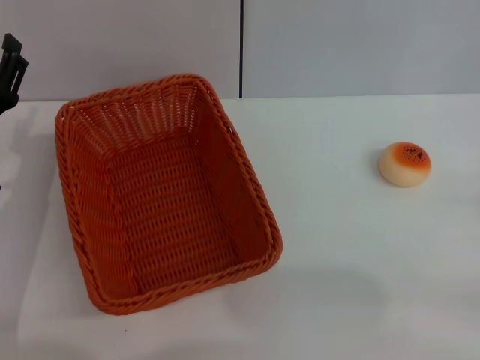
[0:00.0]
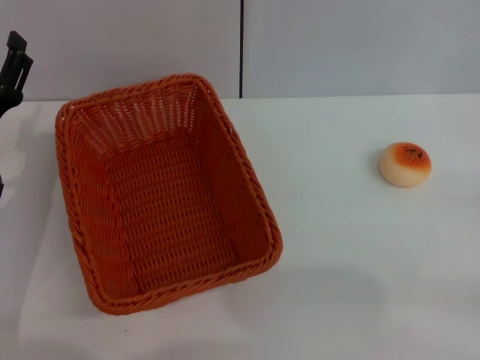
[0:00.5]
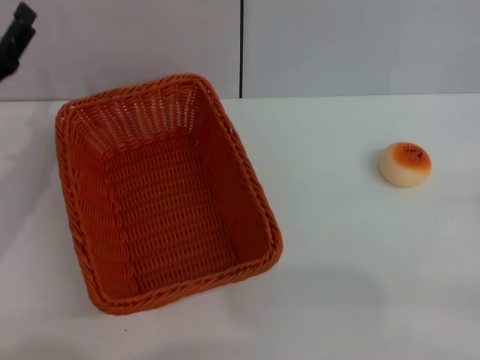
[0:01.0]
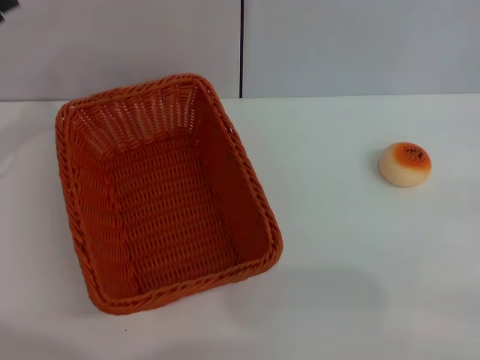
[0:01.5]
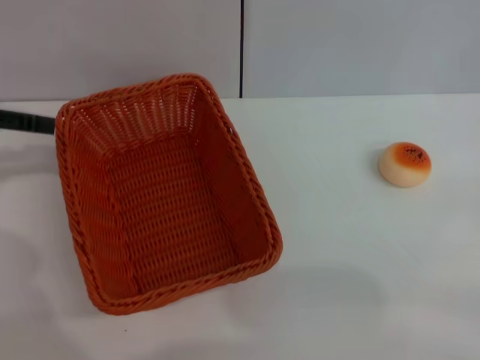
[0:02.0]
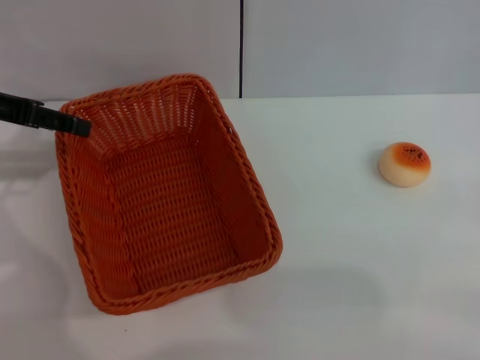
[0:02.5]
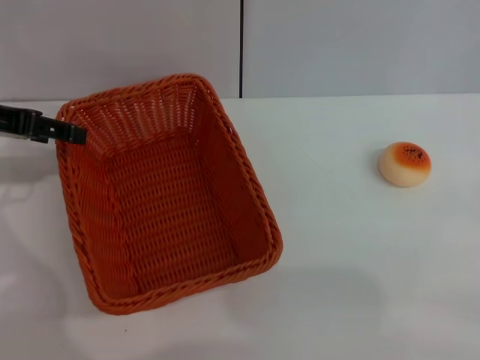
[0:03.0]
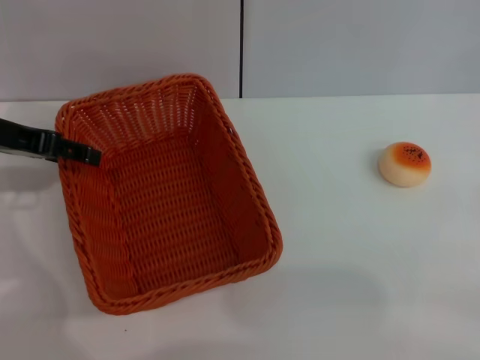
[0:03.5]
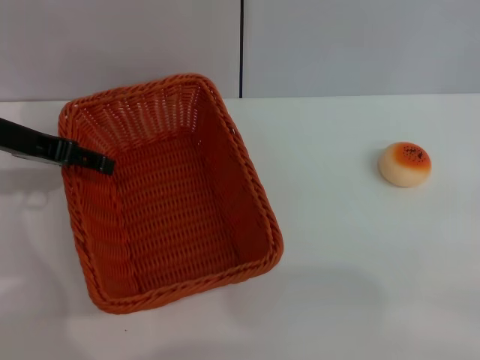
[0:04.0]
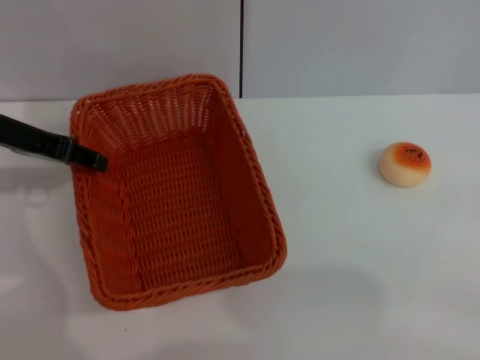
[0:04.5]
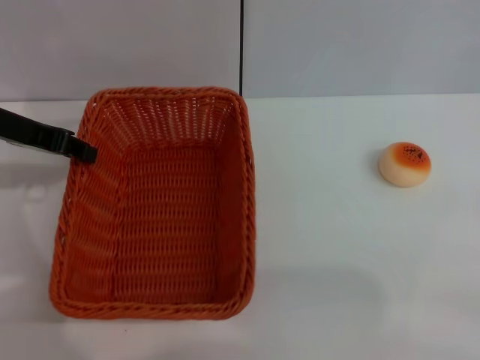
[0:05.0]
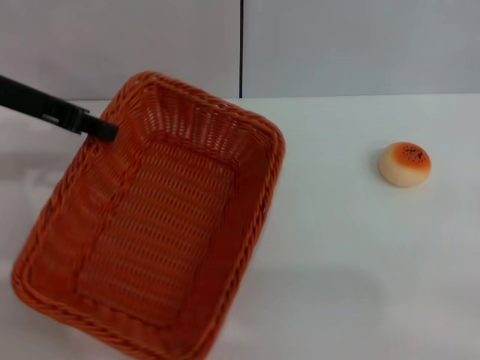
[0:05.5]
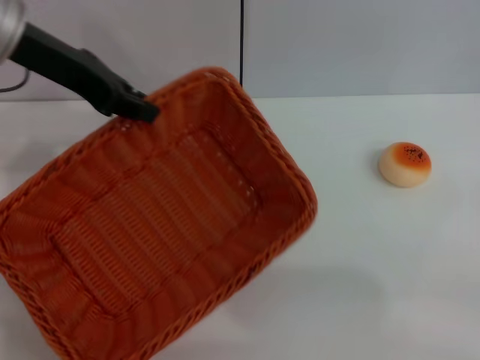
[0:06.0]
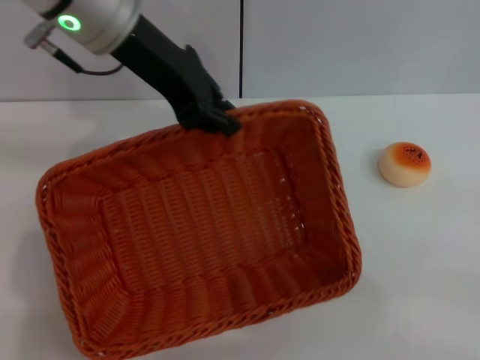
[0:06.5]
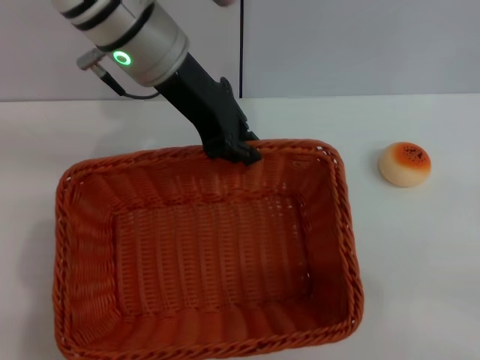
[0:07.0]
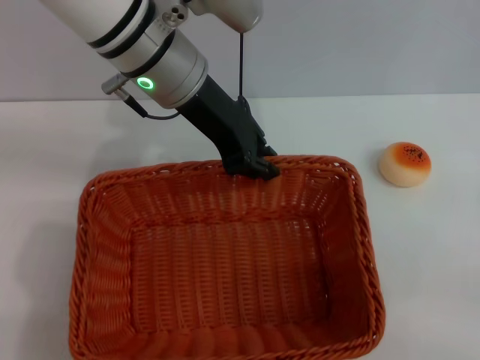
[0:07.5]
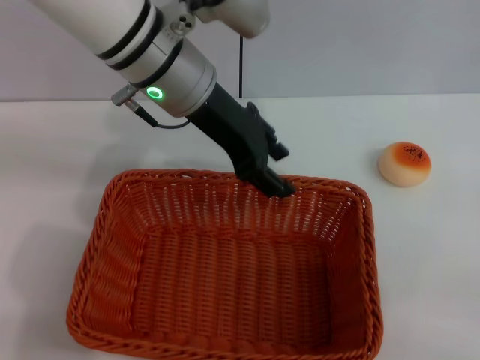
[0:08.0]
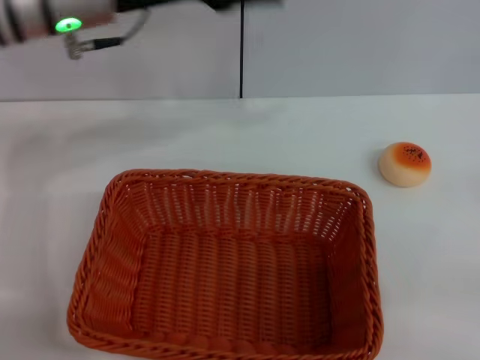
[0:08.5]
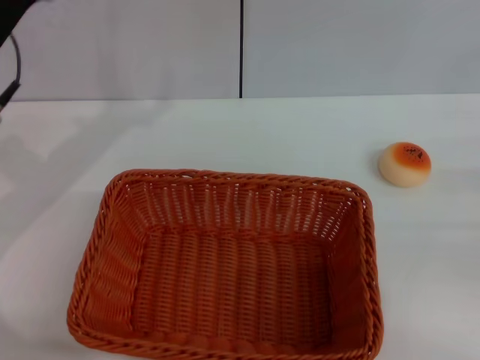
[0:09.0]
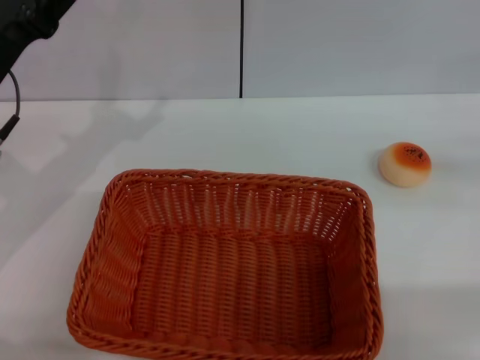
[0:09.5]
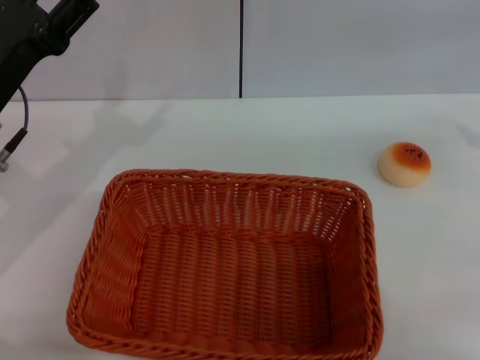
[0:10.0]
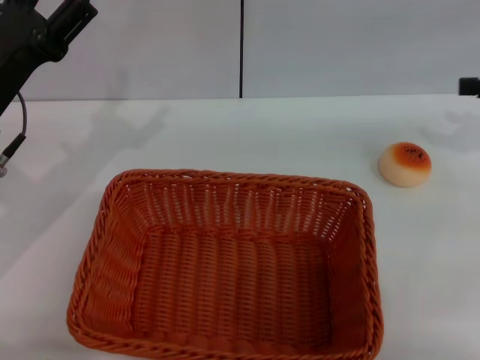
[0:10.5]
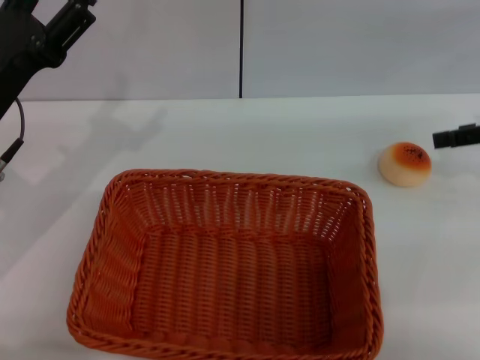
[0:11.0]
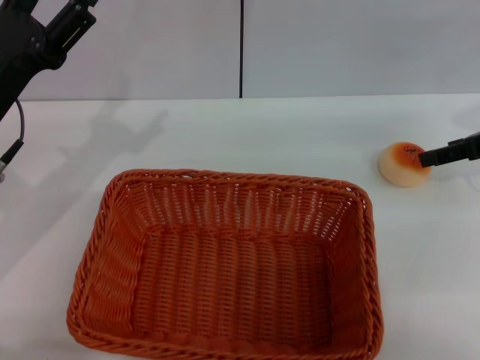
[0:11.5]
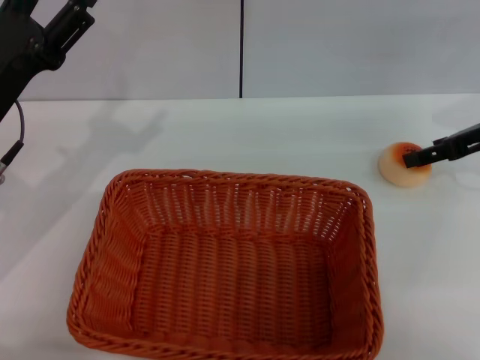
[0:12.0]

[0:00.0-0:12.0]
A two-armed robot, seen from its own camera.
Step, 0:00.0 to 0:08.0: Move the basket to the center of view with the left gripper.
0:00.0 to 0:02.0: The left gripper moves upward, to the left and forward, about 20 cm.
0:02.0 to 0:04.0: The left gripper heads to the right, covering roughly 10 cm.
0:04.0 to 0:06.0: The left gripper goes roughly 10 cm upward and to the right, and closes up.
0:06.0 to 0:08.0: The left gripper shifts approximately 15 cm to the right.
0:08.0 to 0:10.0: The right gripper moves upward and forward, some 20 cm. Meanwhile the left gripper shifts approximately 20 cm to the left, backward and downward, and opens its fingers.
0:10.0 to 0:12.0: The right gripper is displaced to the left, downward and forward by approximately 15 cm.

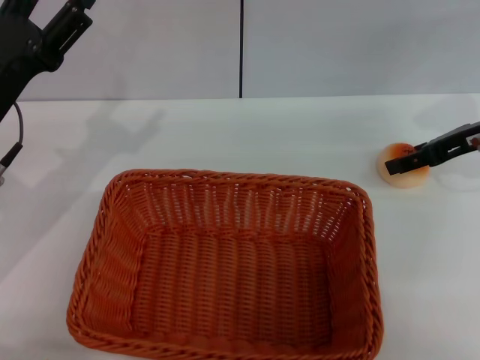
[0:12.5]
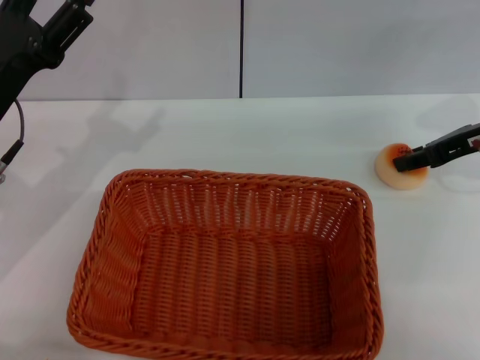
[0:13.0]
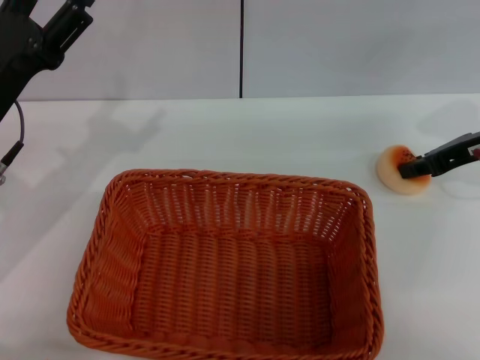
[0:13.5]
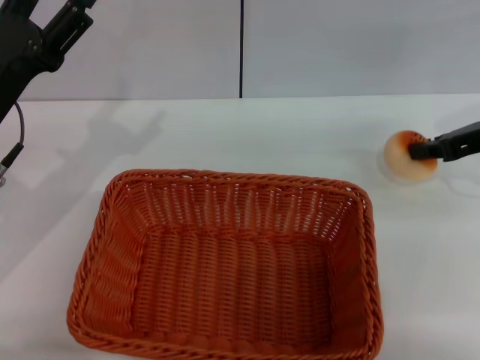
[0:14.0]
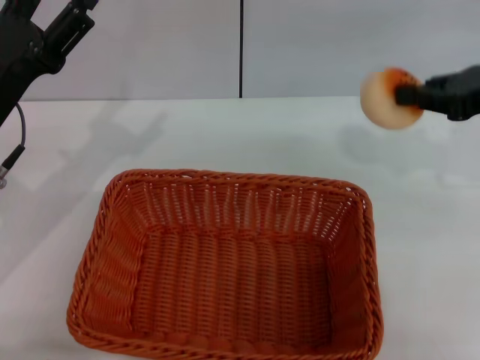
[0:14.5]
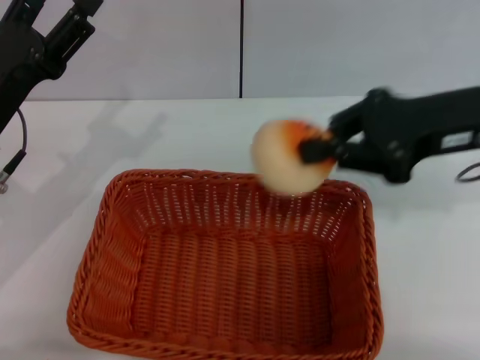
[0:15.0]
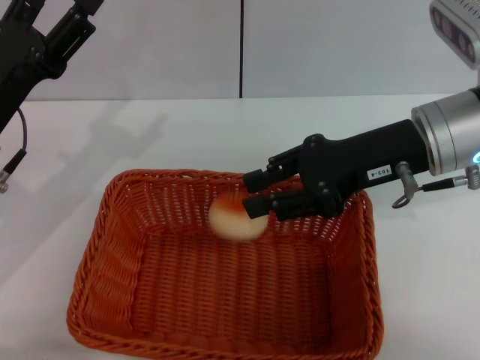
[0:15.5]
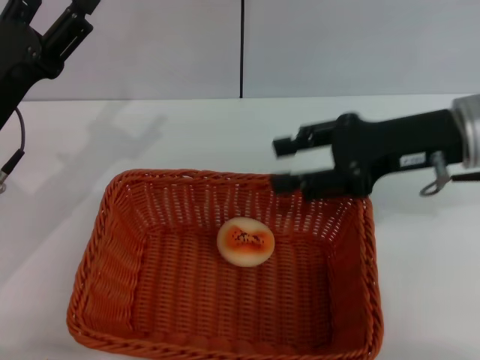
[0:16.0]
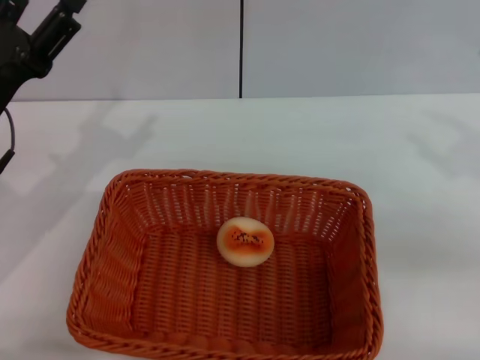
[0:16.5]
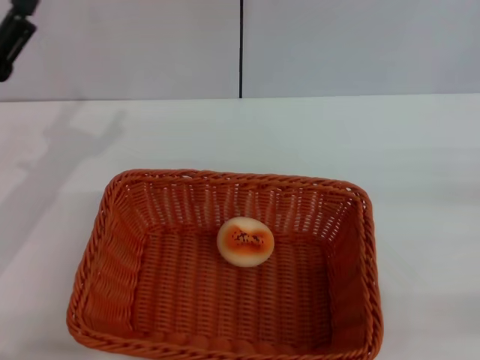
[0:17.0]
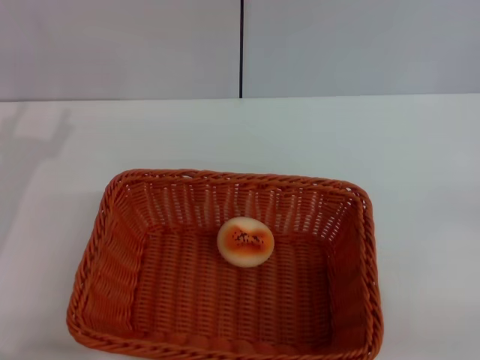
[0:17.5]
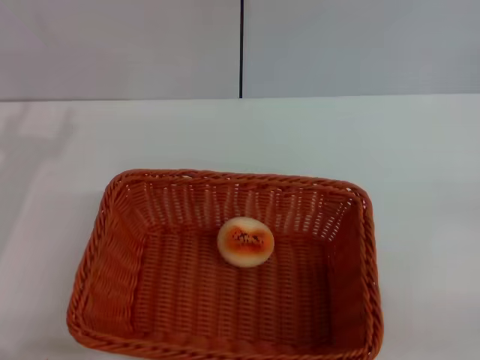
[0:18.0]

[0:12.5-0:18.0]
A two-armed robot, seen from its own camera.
Step, 0:14.5 to 0:15.5: Place the egg yolk pastry into the basket with the right gripper.
0:12.5 to 0:14.5: The right gripper travels upward and backward by some 10 cm, and closes up.
0:14.5 to 0:16.0: The right gripper goes some 10 cm to the left, and opens up.
0:16.0 to 0:18.0: The left gripper ends up about 5 cm from where it was. Meanwhile the right gripper is displaced to the right, backward and downward by roughly 25 cm.

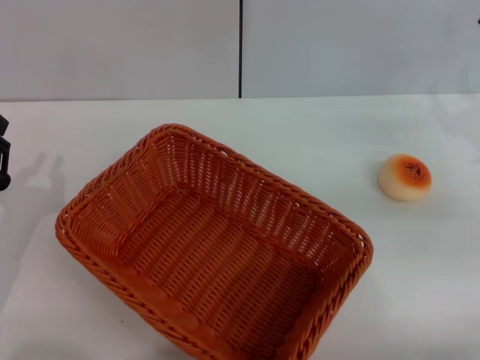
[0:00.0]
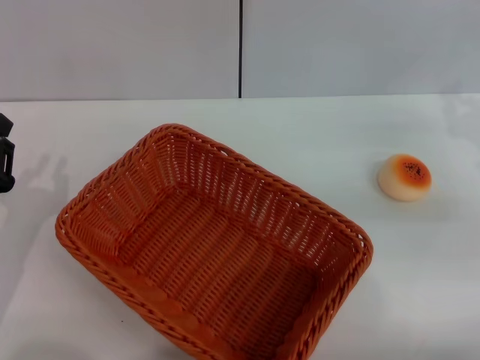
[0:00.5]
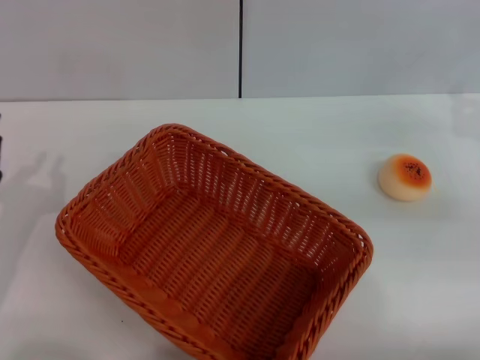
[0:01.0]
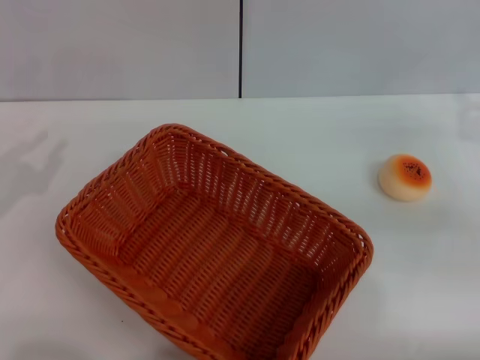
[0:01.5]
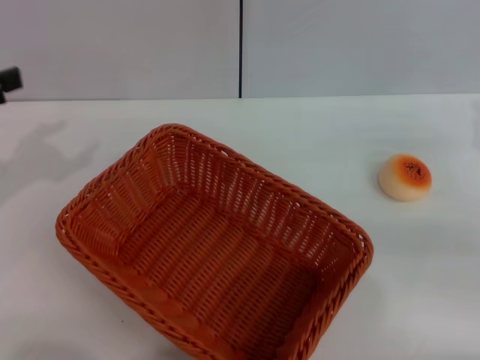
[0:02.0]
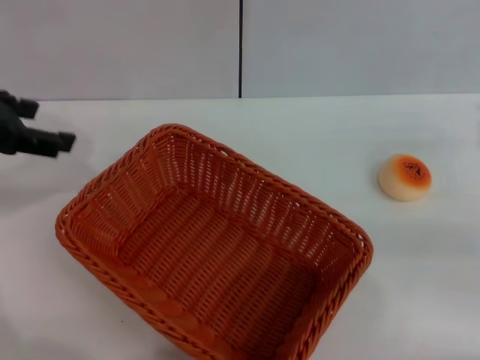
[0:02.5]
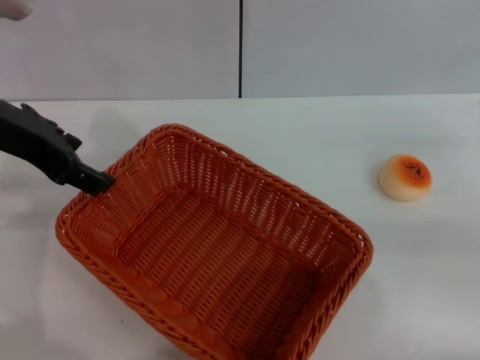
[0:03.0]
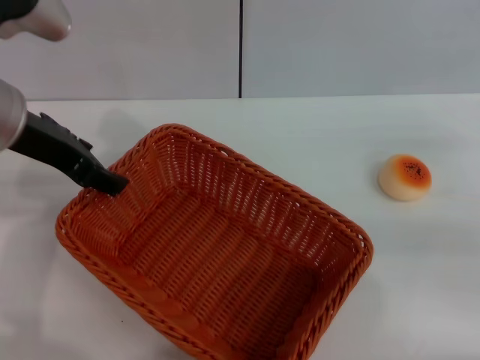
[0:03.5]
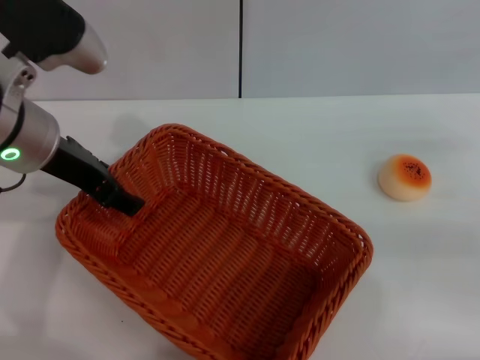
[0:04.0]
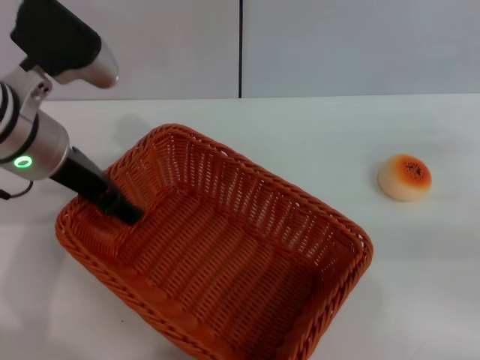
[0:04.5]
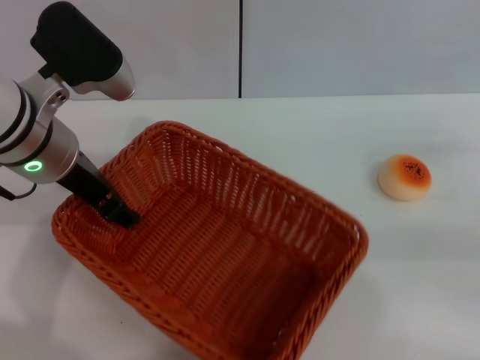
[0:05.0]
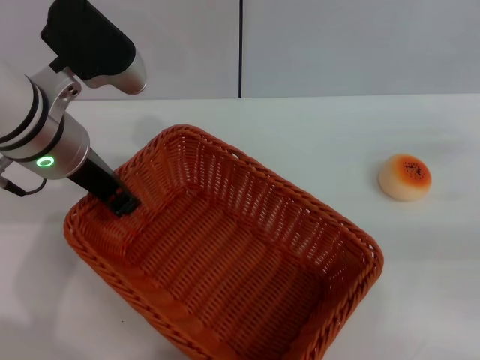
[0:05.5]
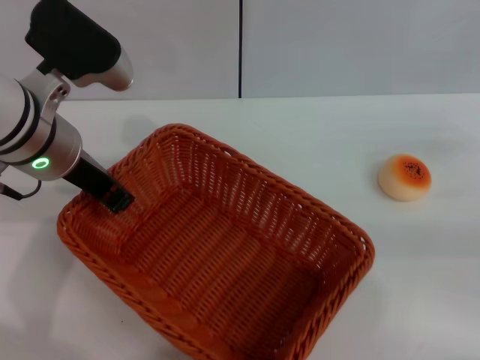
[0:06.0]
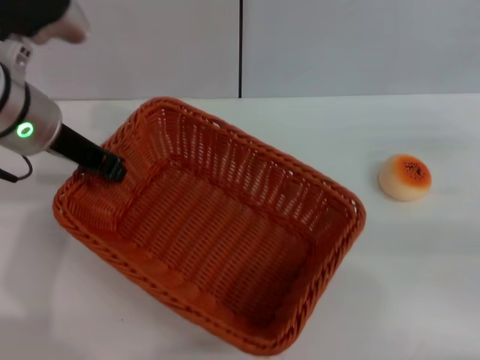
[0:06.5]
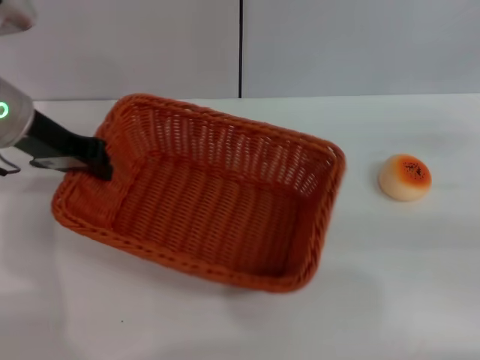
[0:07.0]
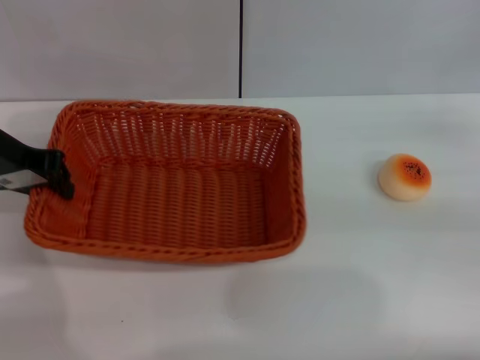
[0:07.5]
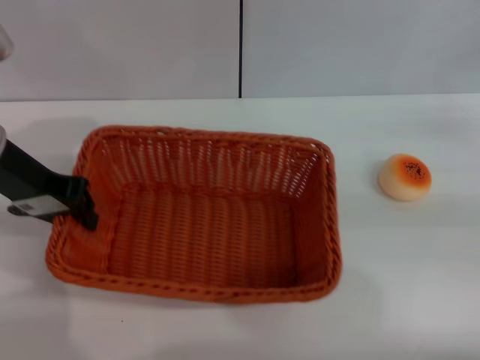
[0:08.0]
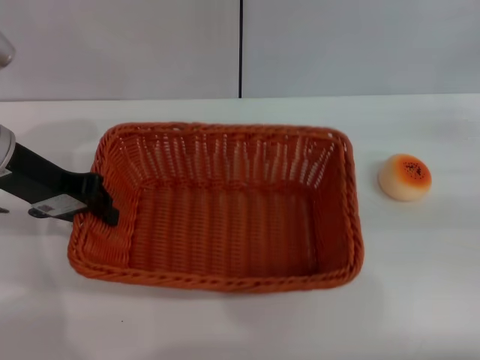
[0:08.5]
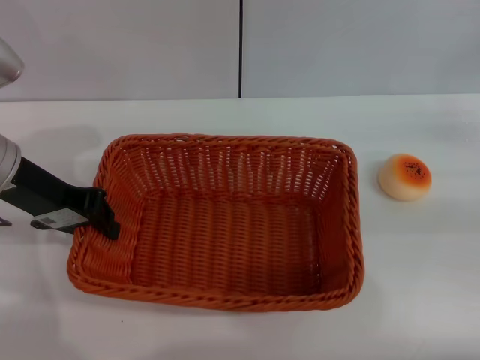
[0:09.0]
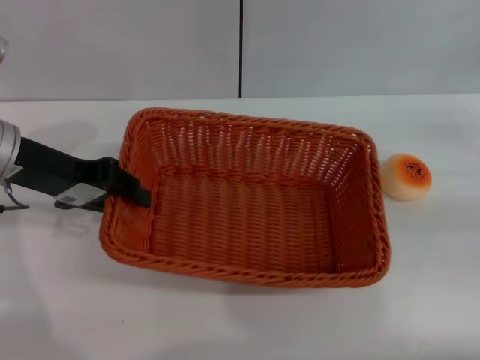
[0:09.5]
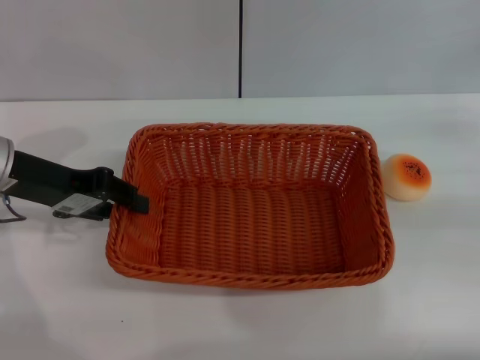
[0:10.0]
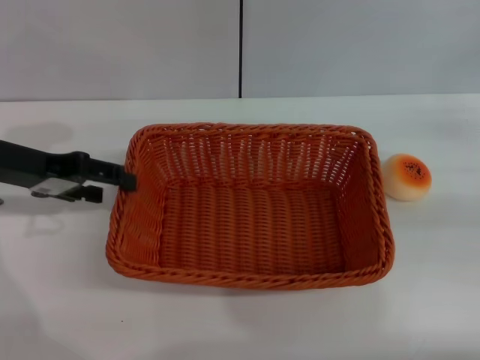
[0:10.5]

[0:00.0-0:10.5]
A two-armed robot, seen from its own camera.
0:00.0 to 0:02.0: The left gripper goes roughly 15 cm upward, and opens up.
0:02.0 to 0:04.0: The left gripper goes some 15 cm to the right.
0:04.0 to 0:06.5: The left gripper closes up.
0:06.5 to 0:08.5: The left gripper is displaced to the left by some 5 cm.
0:08.5 to 0:10.5: The left gripper opens up.
